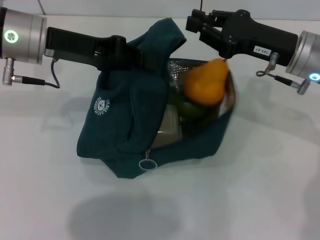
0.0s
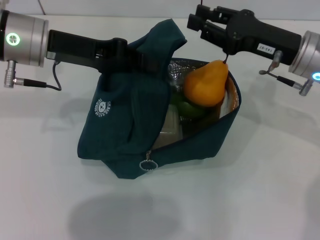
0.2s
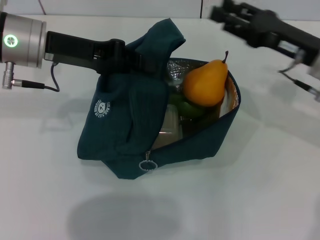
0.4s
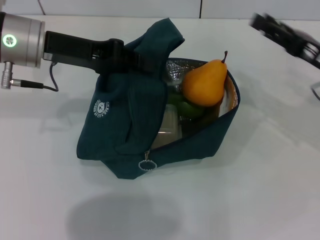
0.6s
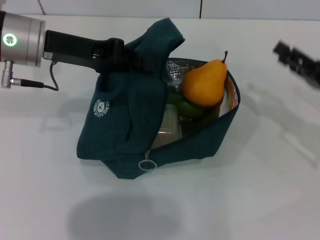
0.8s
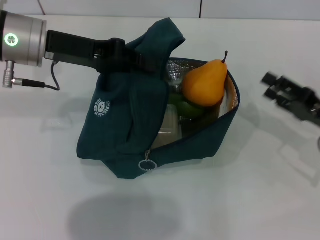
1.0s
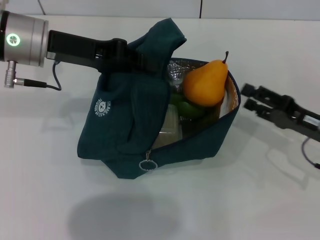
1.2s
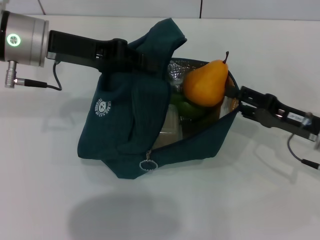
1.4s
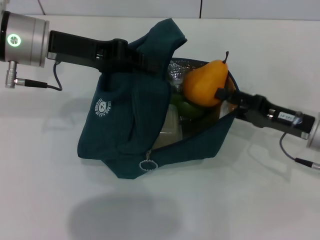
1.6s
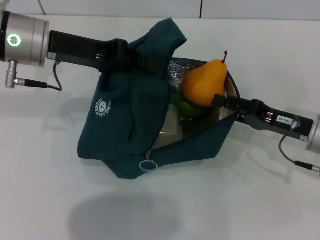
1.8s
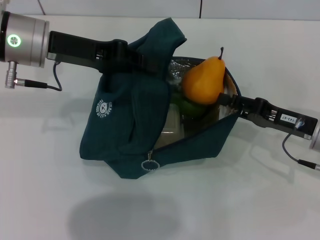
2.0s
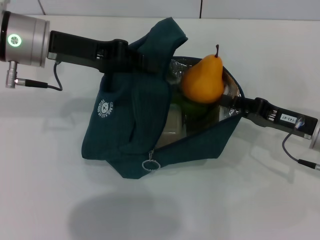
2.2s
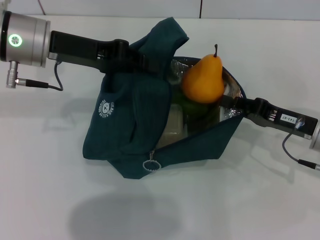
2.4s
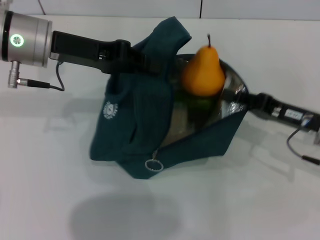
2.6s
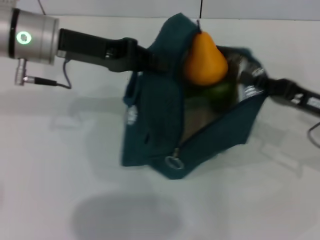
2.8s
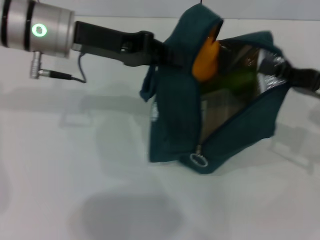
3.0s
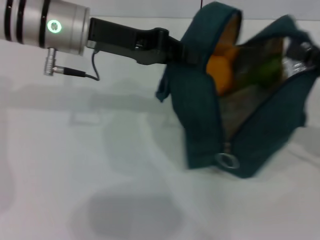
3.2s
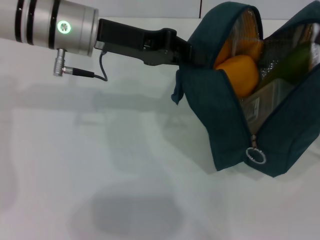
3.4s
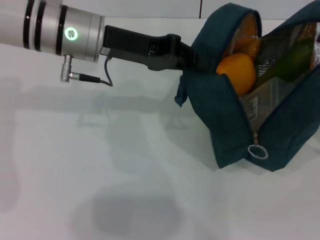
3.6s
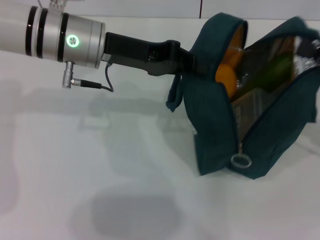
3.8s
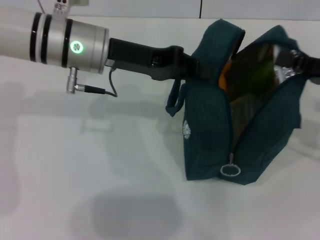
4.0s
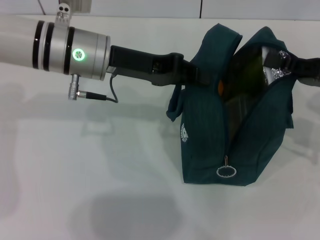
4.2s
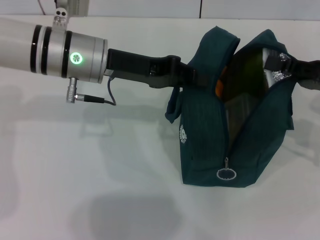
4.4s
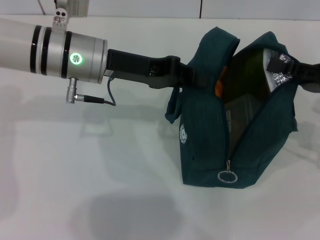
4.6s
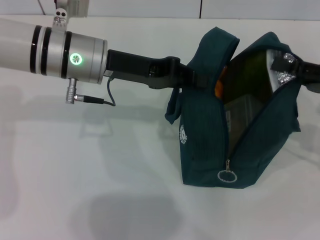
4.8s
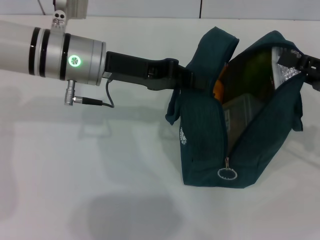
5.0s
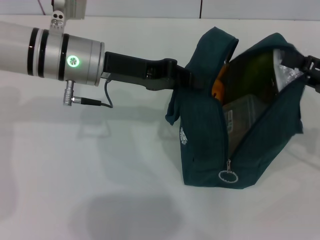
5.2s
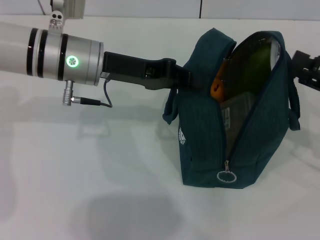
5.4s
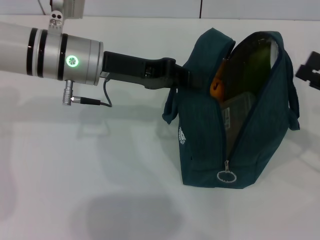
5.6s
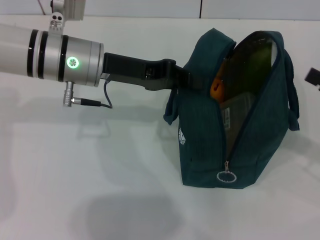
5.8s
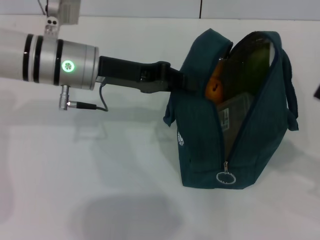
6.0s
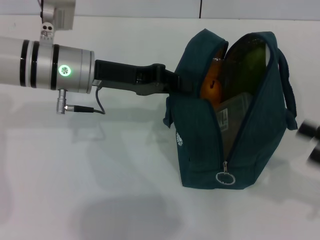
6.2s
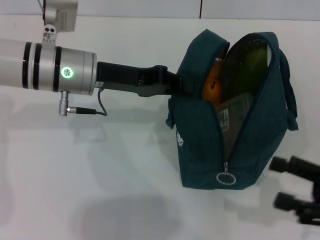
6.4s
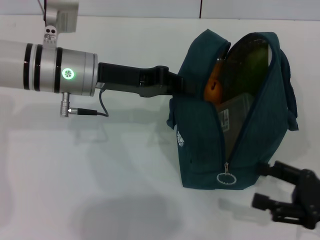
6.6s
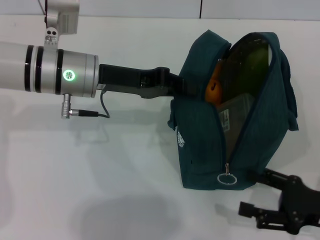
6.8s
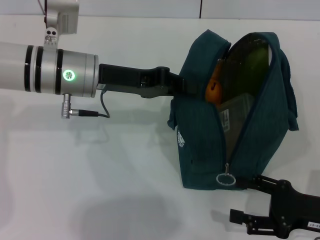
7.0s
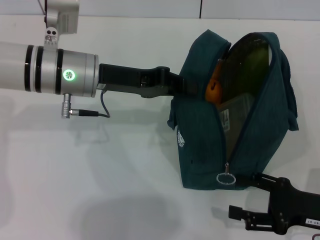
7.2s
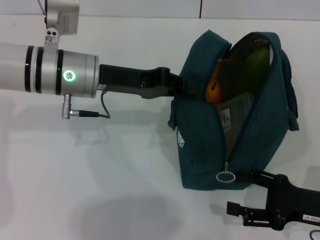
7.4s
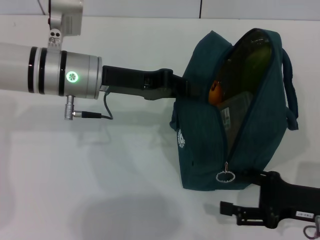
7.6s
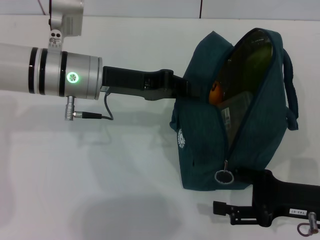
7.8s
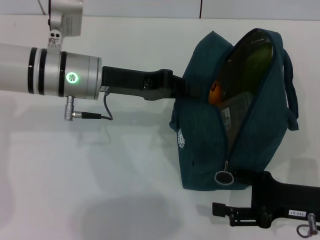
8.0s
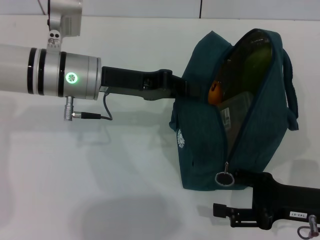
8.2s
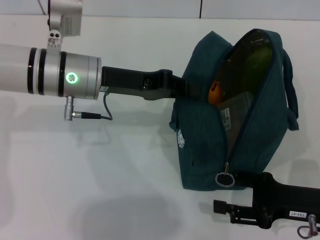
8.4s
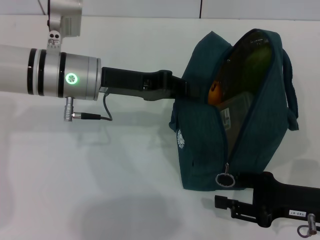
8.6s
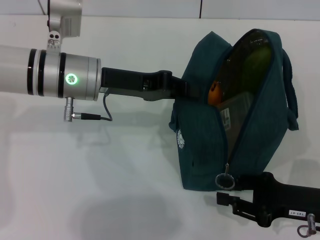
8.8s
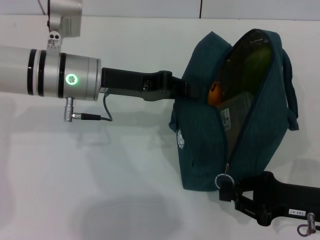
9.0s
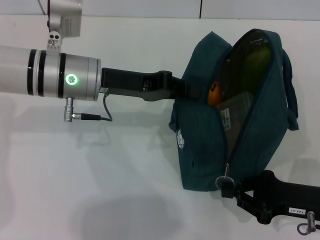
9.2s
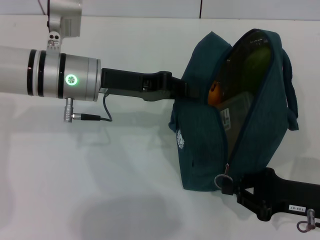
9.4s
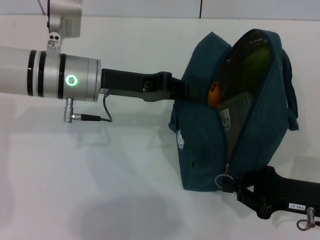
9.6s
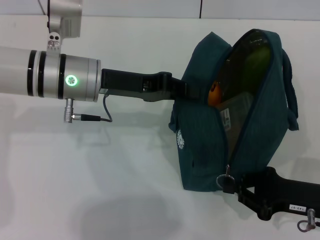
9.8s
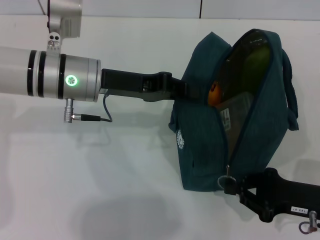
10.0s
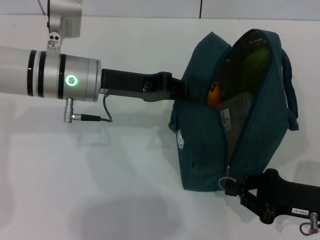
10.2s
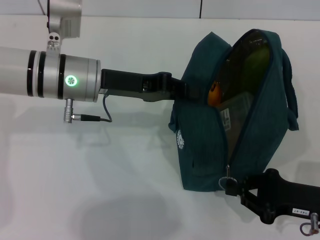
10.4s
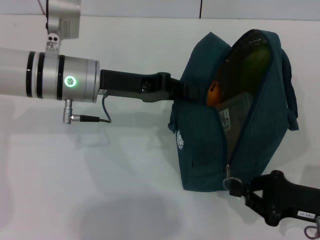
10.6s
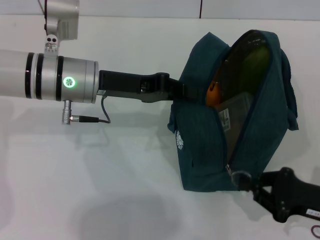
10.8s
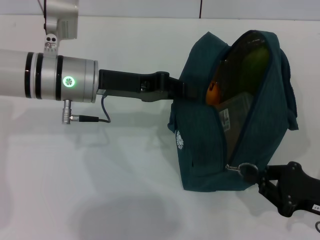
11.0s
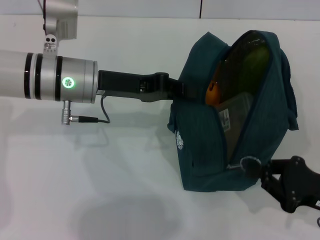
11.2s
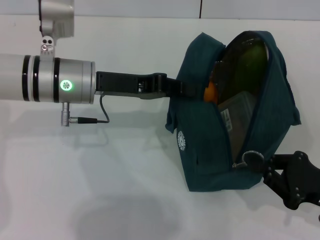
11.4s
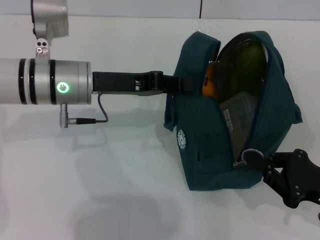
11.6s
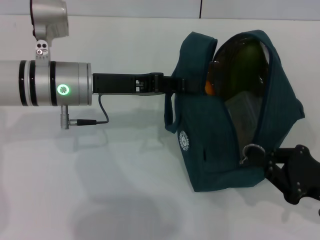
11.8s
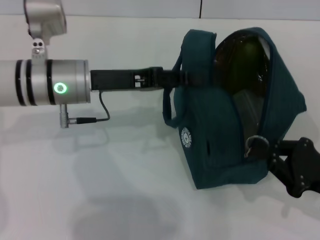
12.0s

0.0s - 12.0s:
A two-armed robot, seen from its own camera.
Step, 0.8s - 5.6s: Hold the lunch bag with your right hand.
0.0s - 1.6s: The right gripper moves downward and backward, some 10 cm, and opens.
1.6s - 3.0s: The right gripper is displaced upward by approximately 5 cm, and closes its fingers.
3.0s - 4.4s: The left gripper moves roughly 5 cm.
4.4s - 6.0s: The right gripper is displaced backward by some 10 cm, and opens up.
6.0s - 7.6s: The right gripper heads downward and to the left, covering about 10 cm.
7.6s - 9.0s: The right gripper closes.
9.0s - 10.4s: The right gripper closes its fingers.

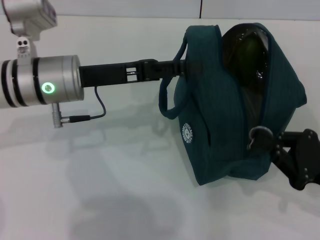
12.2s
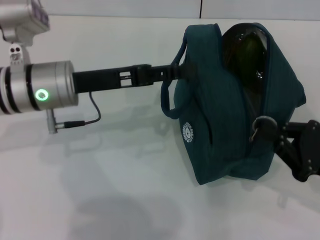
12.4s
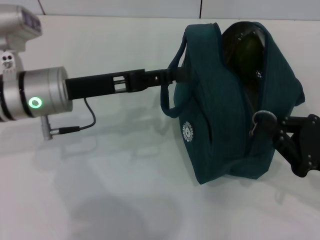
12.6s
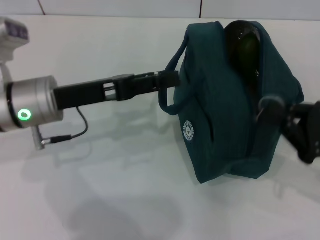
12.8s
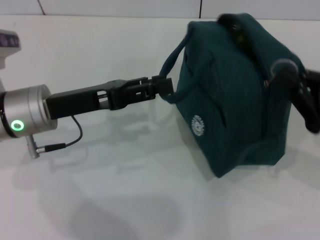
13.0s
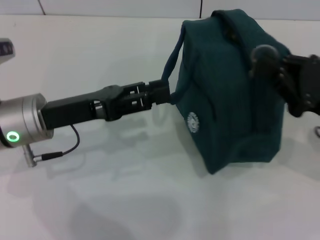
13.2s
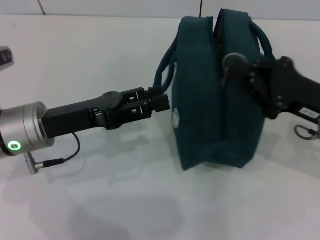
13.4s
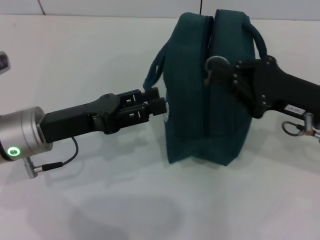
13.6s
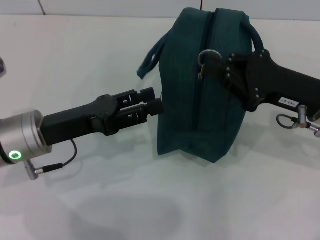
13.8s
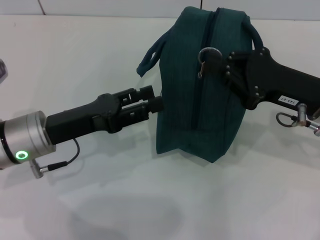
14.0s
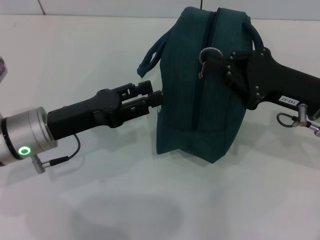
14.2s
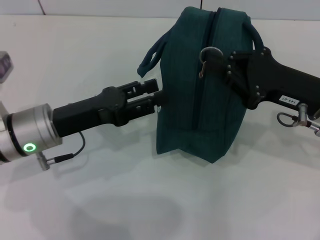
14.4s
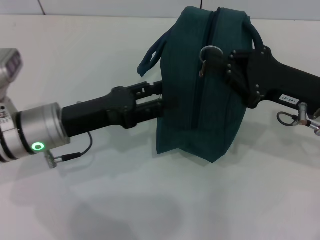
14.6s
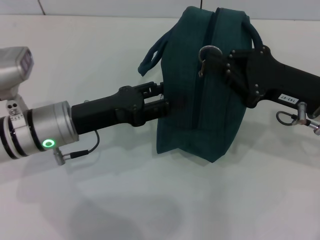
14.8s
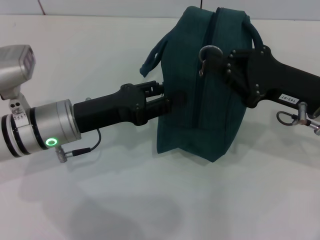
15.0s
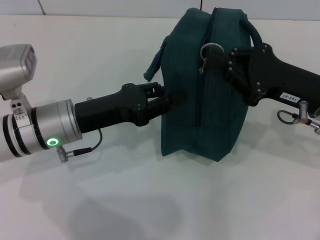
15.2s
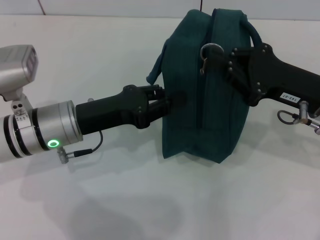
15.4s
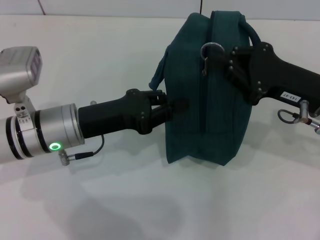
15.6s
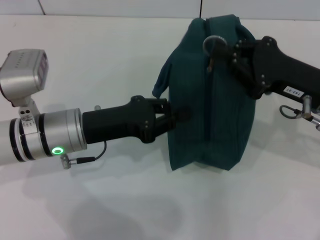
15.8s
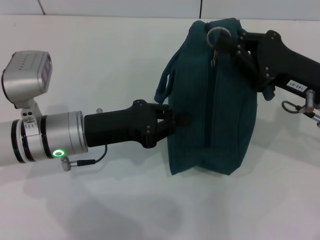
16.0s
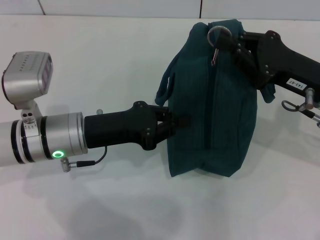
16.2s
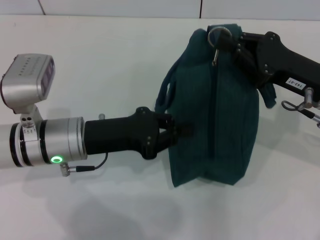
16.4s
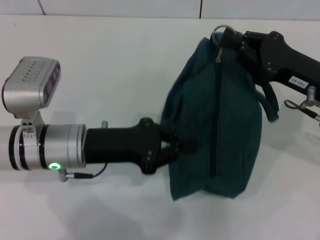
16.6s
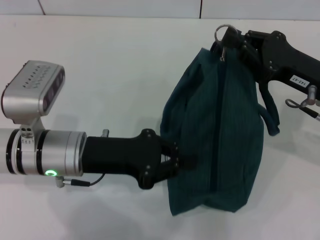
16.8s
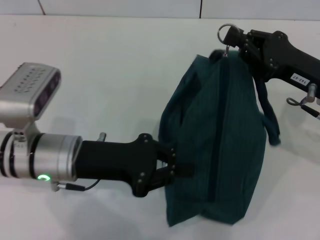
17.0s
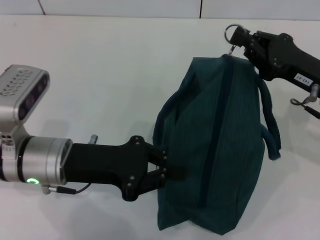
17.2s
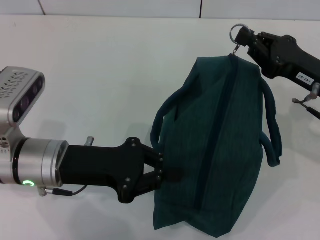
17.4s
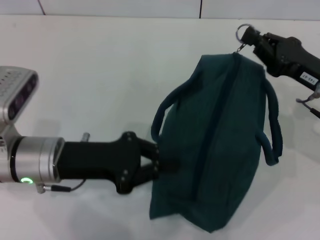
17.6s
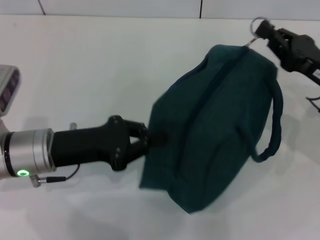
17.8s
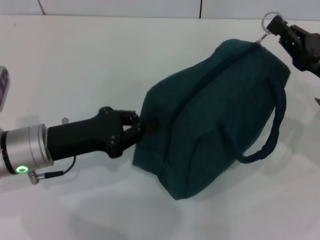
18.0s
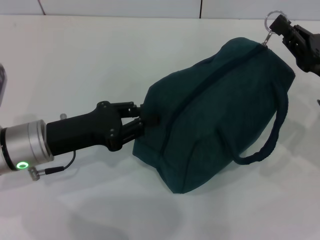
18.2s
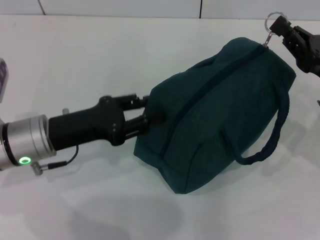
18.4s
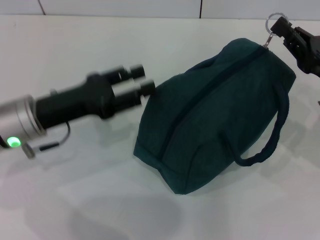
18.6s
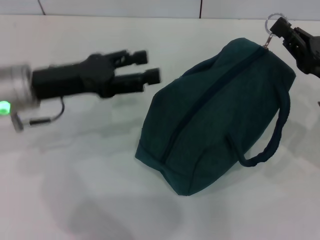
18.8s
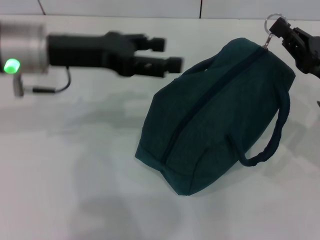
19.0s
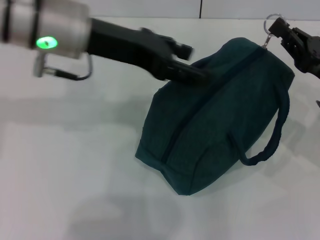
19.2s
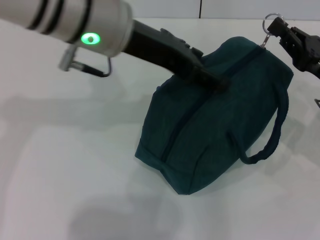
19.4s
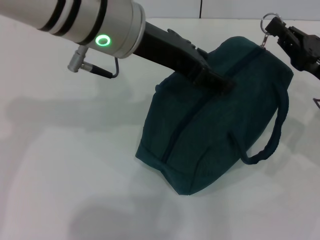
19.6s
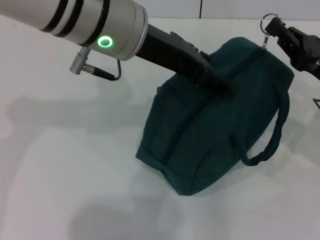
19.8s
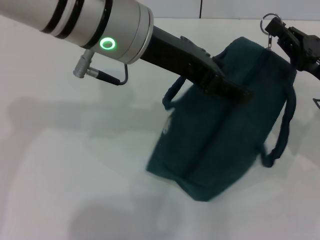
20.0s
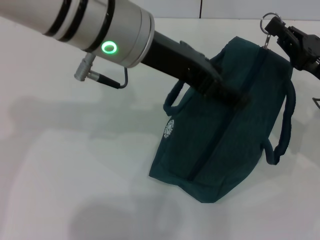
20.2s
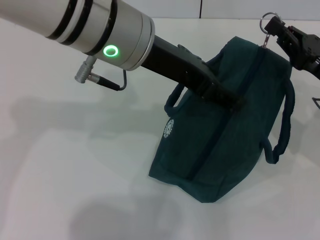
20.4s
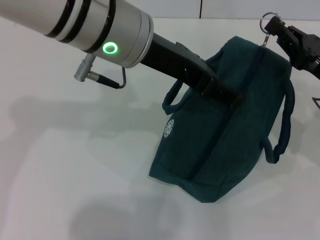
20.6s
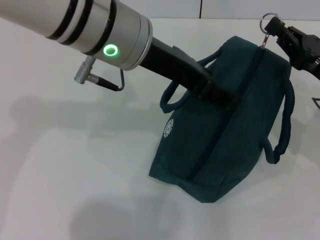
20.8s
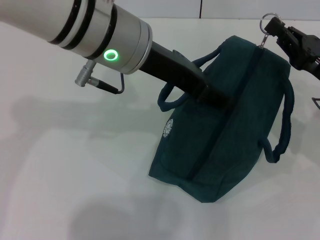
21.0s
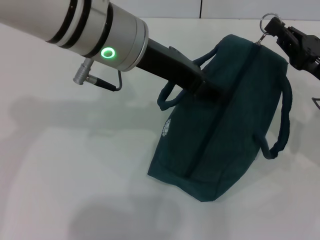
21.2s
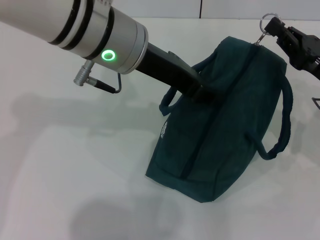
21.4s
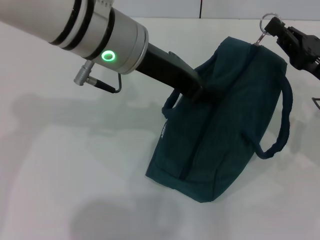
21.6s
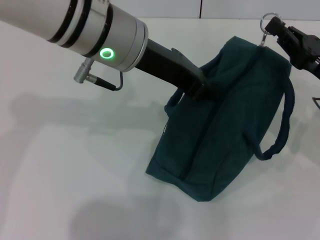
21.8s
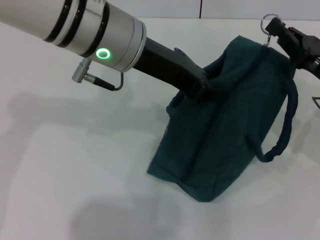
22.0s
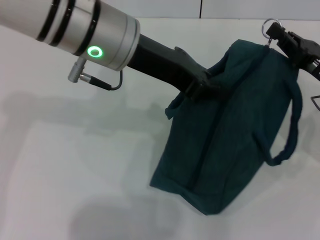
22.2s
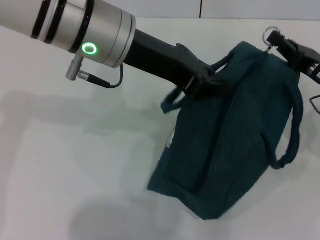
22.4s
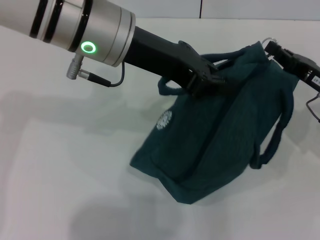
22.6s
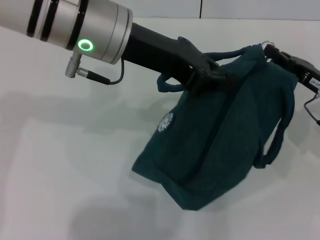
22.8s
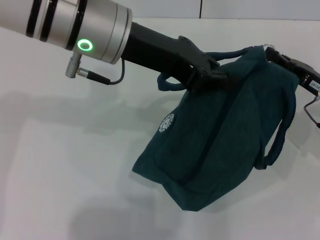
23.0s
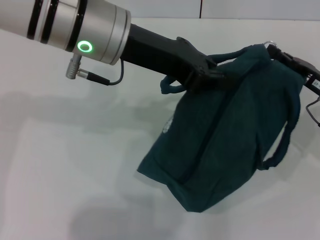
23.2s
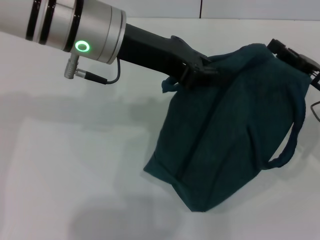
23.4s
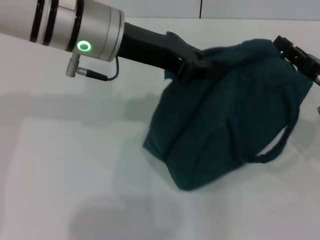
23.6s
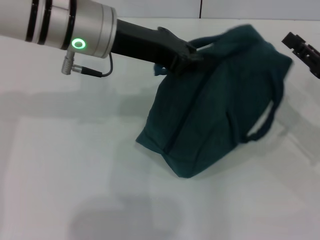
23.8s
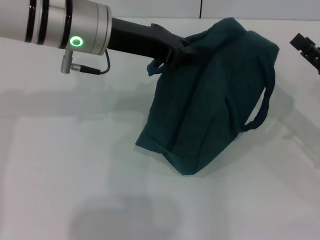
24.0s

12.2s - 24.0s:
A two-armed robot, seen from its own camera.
Step, 14.0s - 23.6s: Zip up the lunch bag with your right hand.
12.2s - 13.6s: The right gripper is displaced forward, to the left and upward by some 10 cm. The left gripper goes roughly 5 cm backward.
13.6s - 15.2s: The grippers make only small movements.
15.2s - 16.6s: The left gripper closes.
18.2s - 19.6s: The left gripper shifts approximately 25 cm upward and to the right, and opens up.
19.6s - 21.0s: There are only small adjustments of the grippers.
21.0s - 22.6s: The left gripper closes up.
22.6s - 24.0s: The right gripper opens. Meanwhile the left gripper moves approximately 5 cm.
